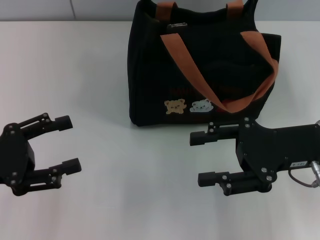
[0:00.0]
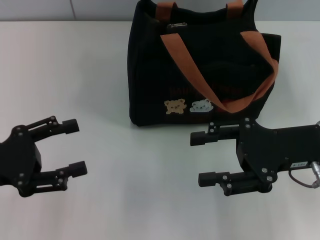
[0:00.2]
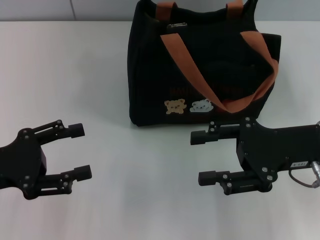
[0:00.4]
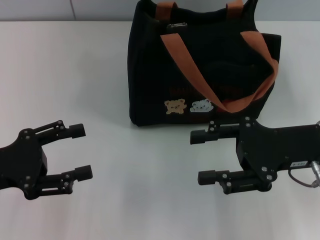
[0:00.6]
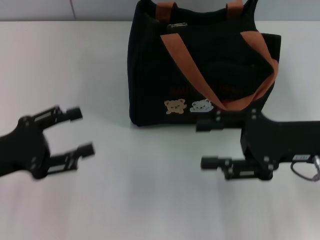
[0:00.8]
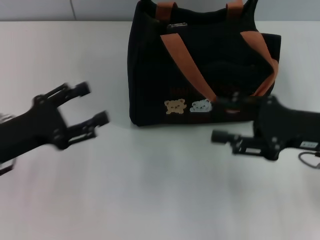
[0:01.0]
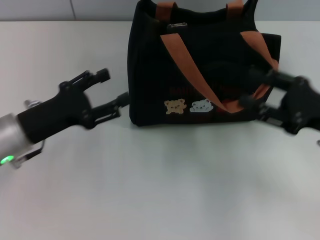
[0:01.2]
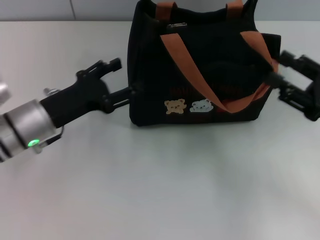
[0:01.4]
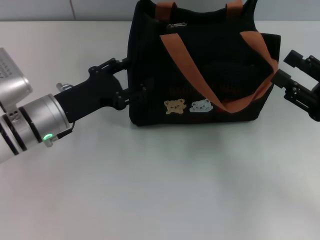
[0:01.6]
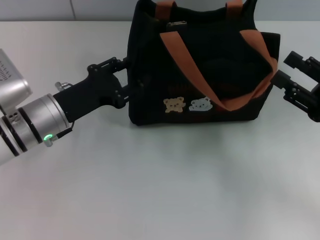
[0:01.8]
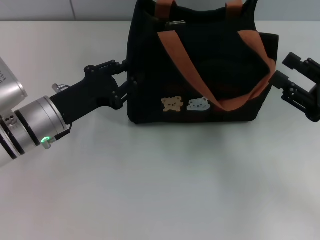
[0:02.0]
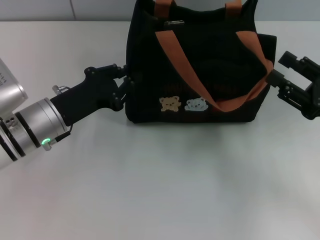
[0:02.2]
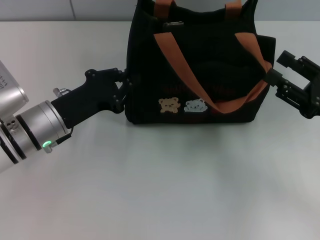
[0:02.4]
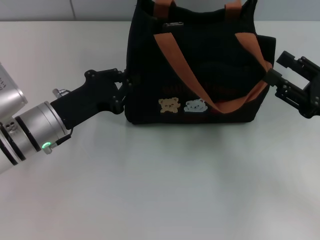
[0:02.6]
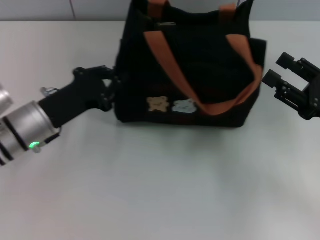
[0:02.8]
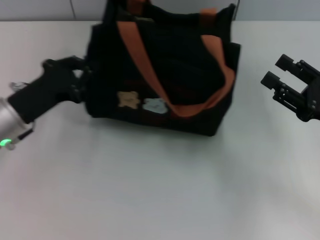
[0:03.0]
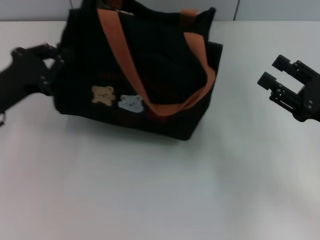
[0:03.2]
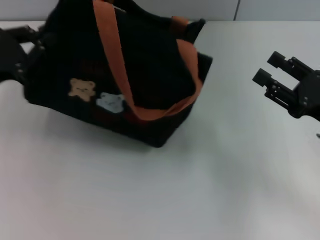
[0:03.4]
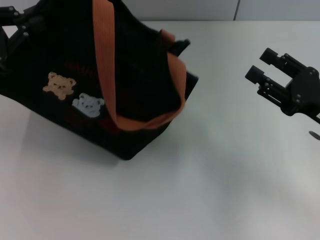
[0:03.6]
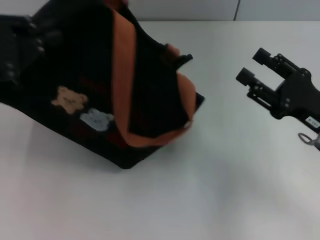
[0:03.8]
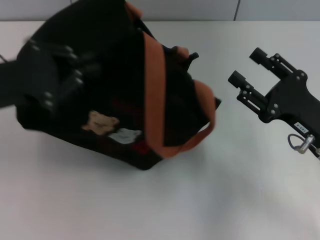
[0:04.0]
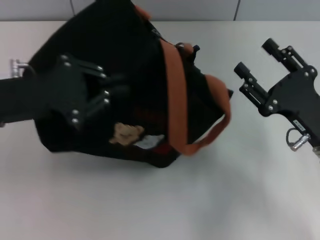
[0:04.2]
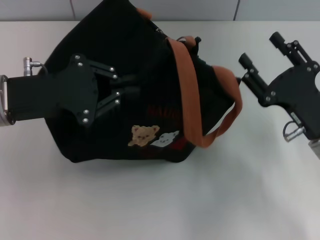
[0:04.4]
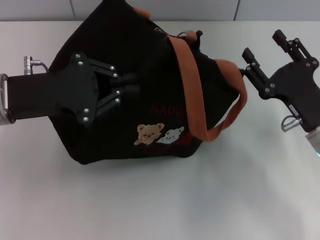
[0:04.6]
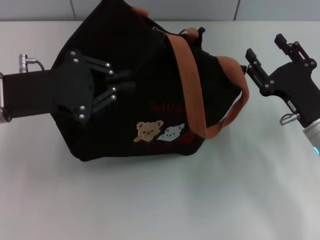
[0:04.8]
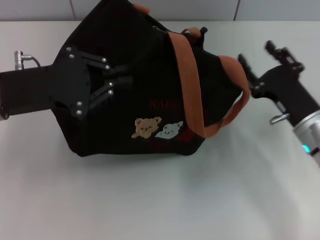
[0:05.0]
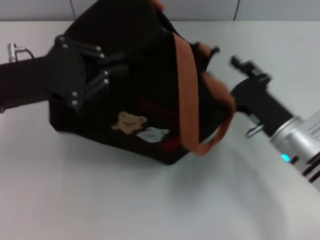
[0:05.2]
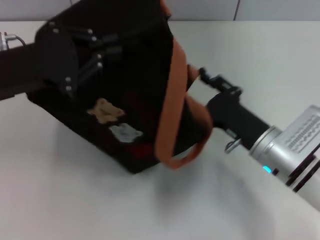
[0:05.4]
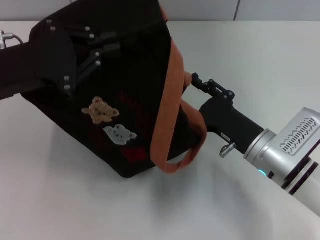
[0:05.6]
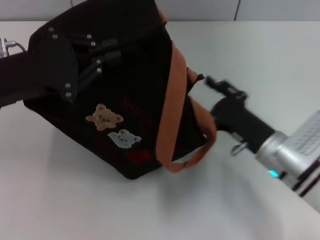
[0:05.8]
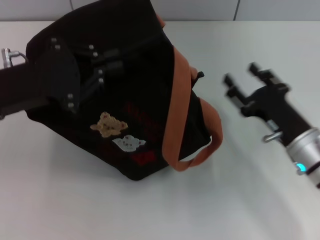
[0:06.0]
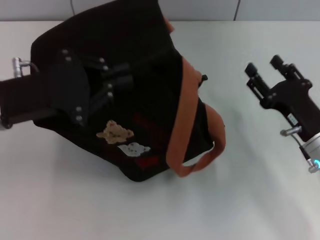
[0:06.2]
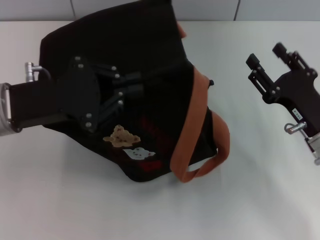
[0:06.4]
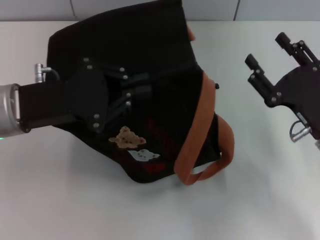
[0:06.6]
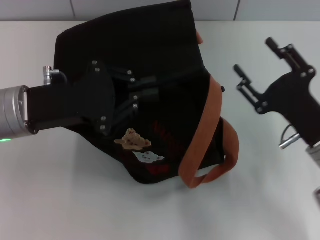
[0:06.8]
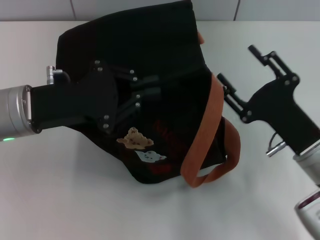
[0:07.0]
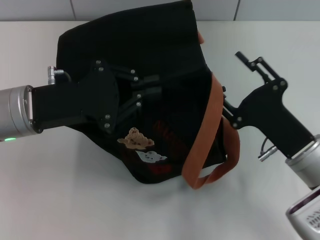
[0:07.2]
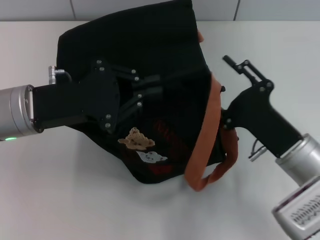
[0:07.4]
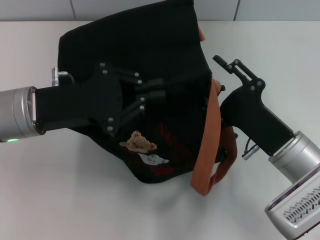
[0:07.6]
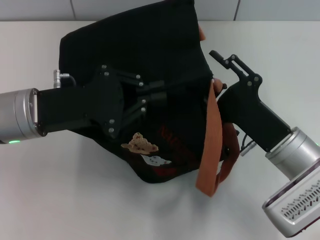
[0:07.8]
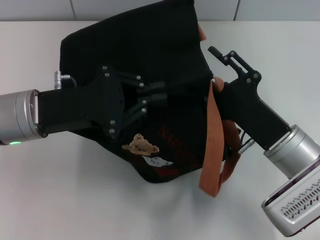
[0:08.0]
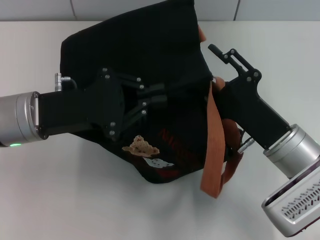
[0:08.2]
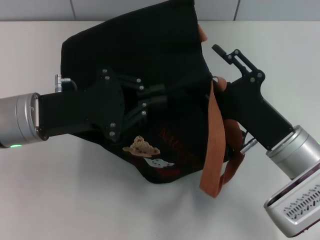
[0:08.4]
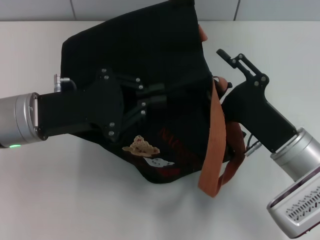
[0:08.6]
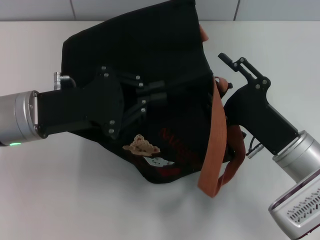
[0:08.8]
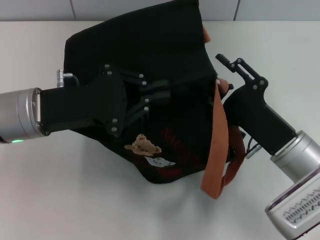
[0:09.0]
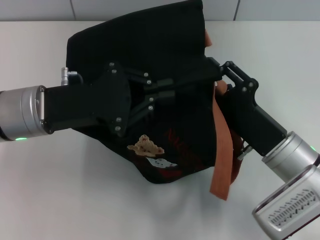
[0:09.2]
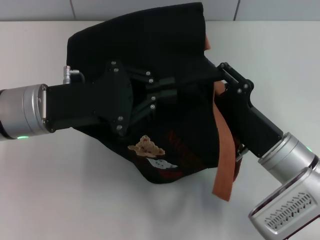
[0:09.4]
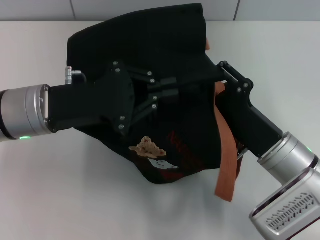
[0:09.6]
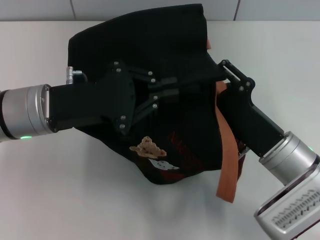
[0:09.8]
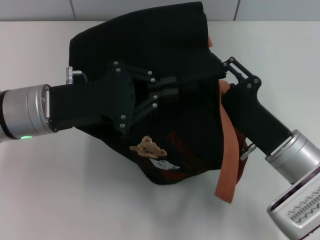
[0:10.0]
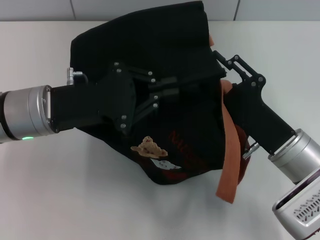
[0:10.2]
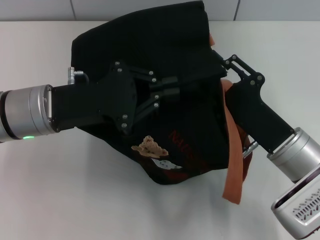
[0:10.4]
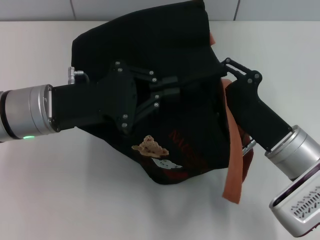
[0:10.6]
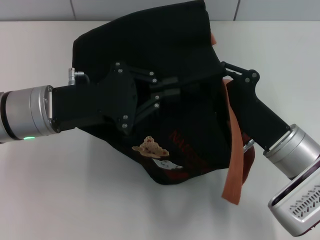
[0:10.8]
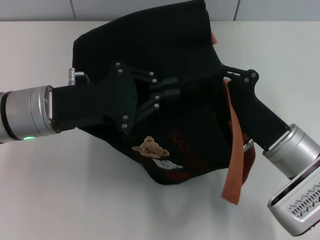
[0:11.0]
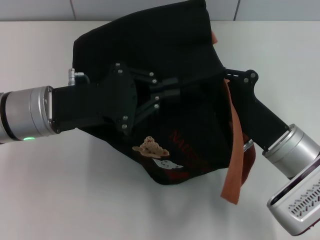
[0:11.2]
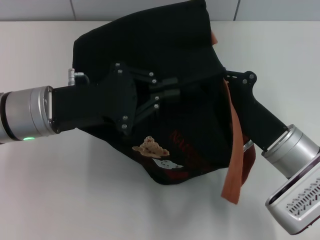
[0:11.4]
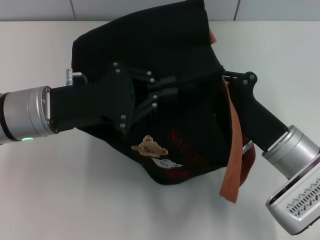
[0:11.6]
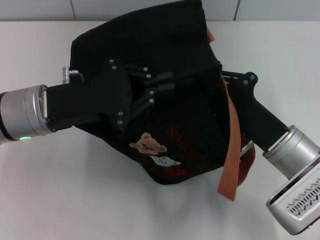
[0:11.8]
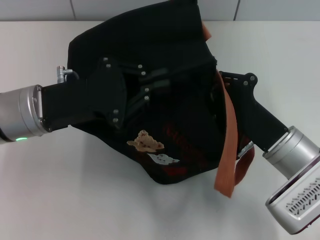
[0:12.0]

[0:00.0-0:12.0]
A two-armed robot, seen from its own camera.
0.0 to 1.6 s: The right gripper shifts about 10 cm to the right. The left gripper is displaced to the right and forward by roughly 15 cm.
1.6 to 3.0 s: The left gripper closes up.
3.0 to 4.4 s: The right gripper shifts about 5 cm to the left. Meanwhile the left gripper travels upward by about 10 cm.
7.6 to 9.0 s: Neither gripper changes place.
9.0 to 10.4 s: The grippers stay close to where they were, moving slightly.
10.4 to 12.0 s: The right gripper closes.

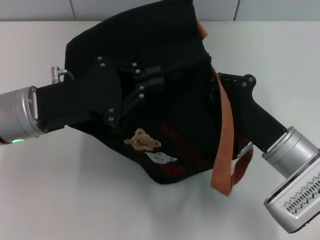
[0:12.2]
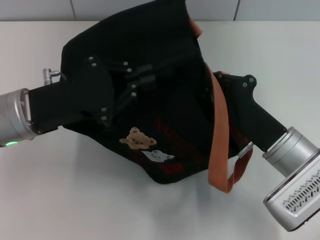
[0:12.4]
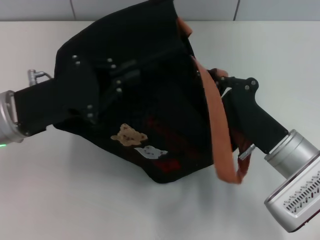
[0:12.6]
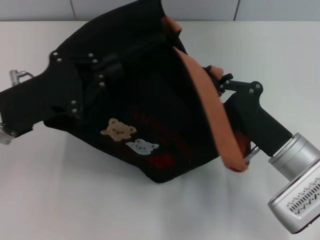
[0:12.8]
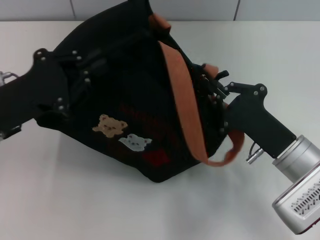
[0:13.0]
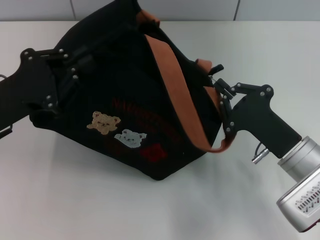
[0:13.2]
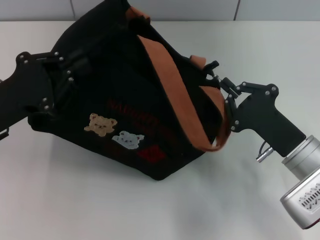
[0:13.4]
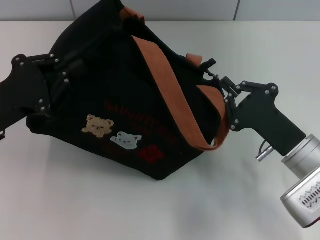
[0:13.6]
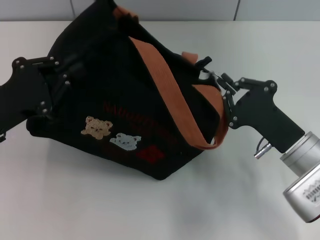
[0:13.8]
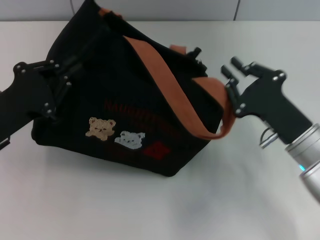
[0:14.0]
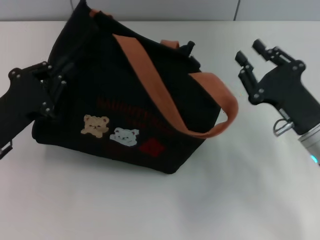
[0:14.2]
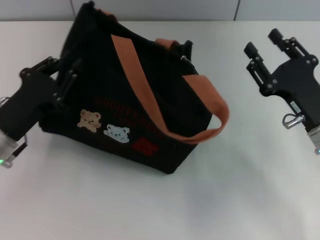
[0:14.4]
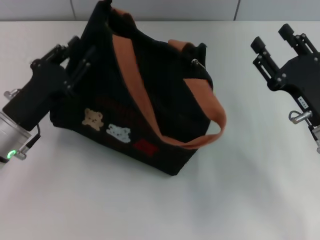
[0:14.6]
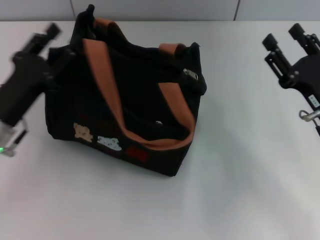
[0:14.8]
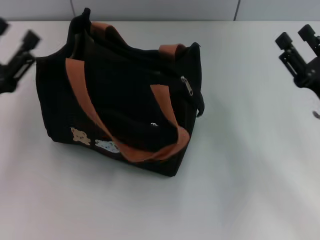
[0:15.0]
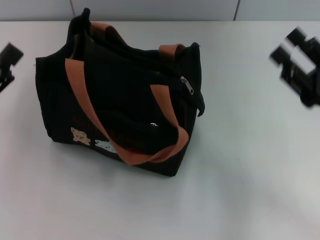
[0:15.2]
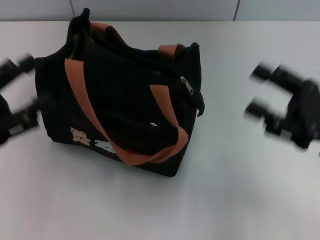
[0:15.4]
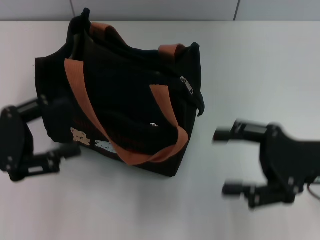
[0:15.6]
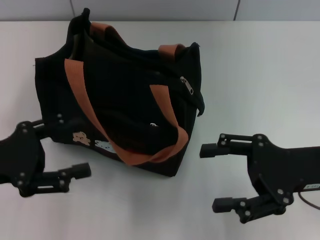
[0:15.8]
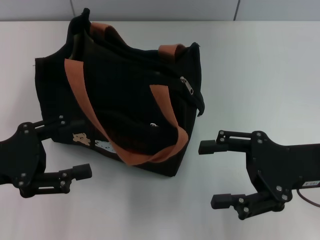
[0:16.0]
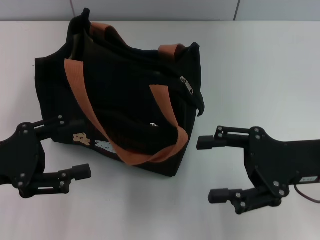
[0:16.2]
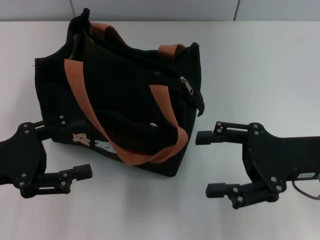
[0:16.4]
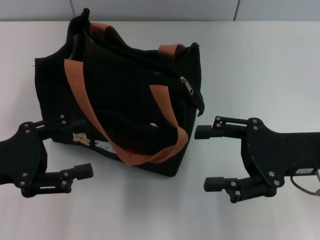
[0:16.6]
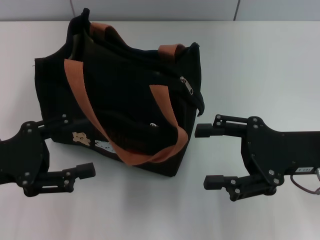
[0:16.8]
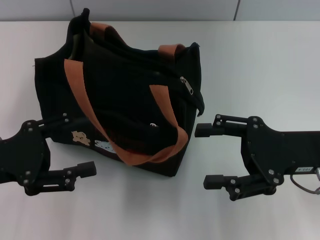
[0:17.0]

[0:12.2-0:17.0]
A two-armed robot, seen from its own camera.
Step, 14.4 to 15.0 s: Grab the bag with your left hand.
12.2 to 13.8 s: The left gripper is displaced to the left by roughly 5 cm.
13.8 to 15.4 s: The left gripper moves roughly 5 cm, and opens up; the right gripper goes some 10 cm to the right and upward, and opens up.

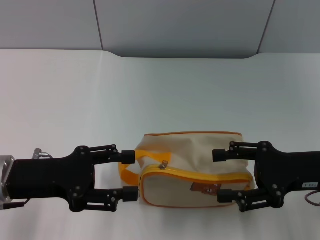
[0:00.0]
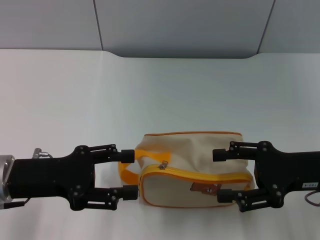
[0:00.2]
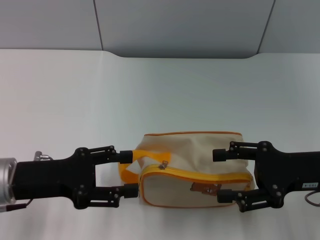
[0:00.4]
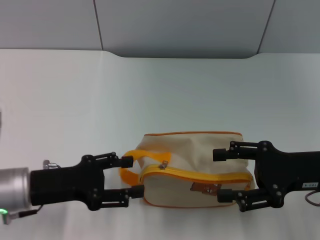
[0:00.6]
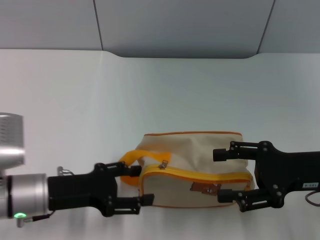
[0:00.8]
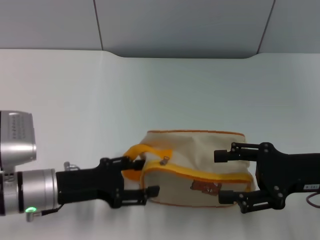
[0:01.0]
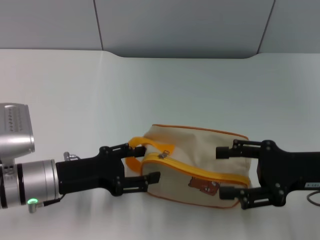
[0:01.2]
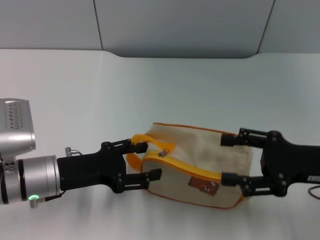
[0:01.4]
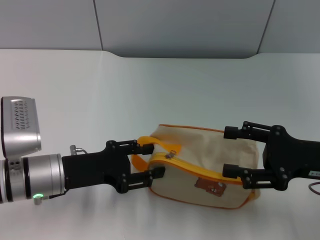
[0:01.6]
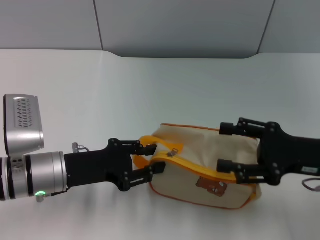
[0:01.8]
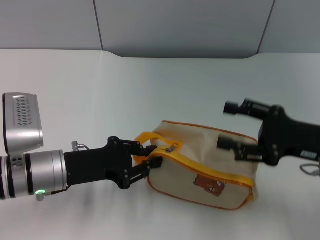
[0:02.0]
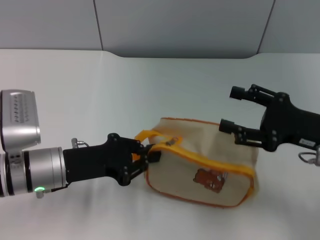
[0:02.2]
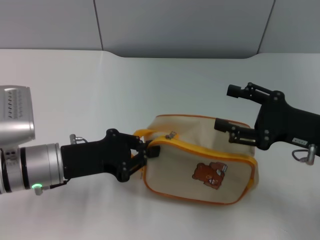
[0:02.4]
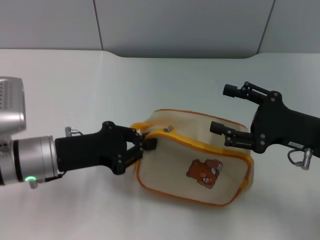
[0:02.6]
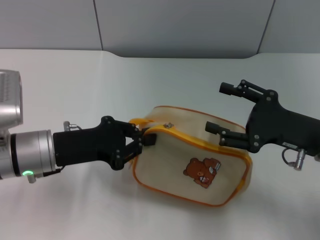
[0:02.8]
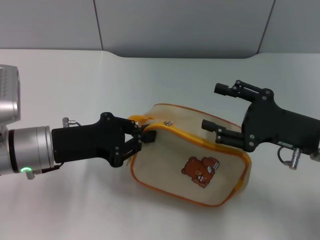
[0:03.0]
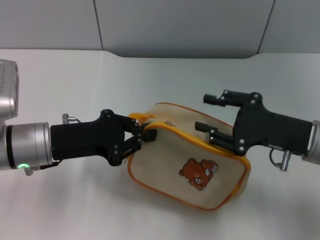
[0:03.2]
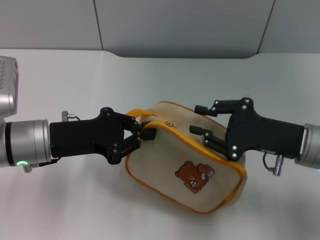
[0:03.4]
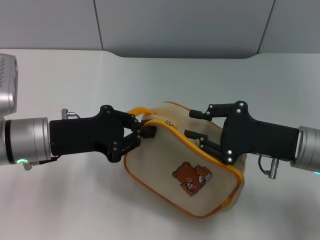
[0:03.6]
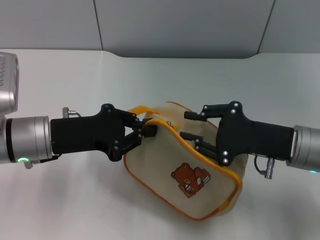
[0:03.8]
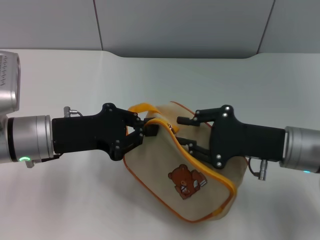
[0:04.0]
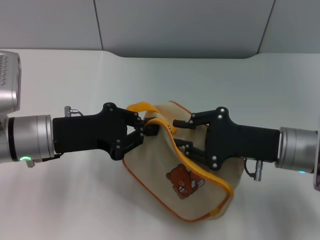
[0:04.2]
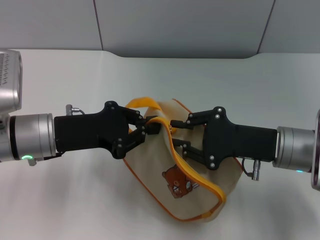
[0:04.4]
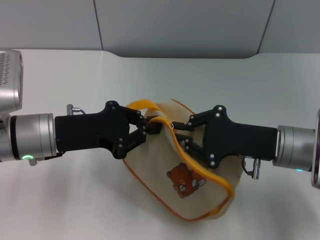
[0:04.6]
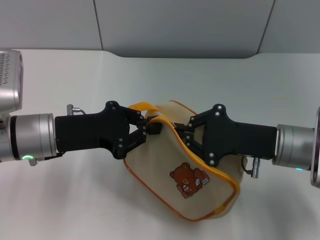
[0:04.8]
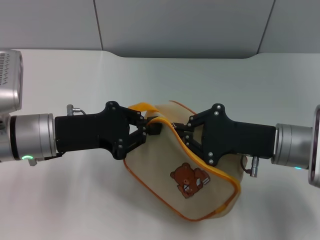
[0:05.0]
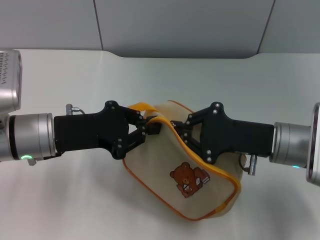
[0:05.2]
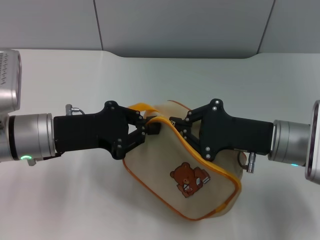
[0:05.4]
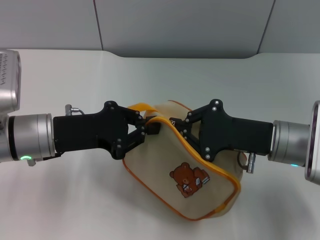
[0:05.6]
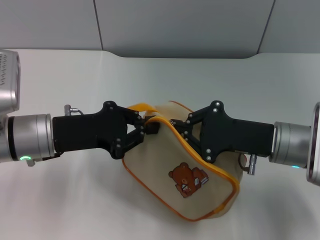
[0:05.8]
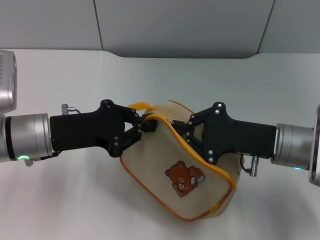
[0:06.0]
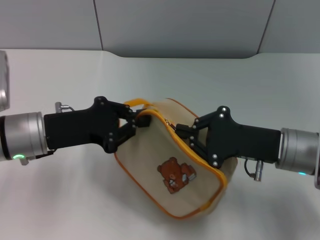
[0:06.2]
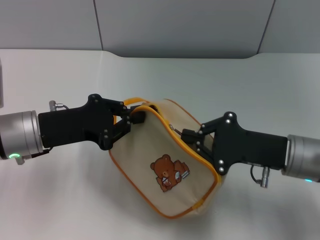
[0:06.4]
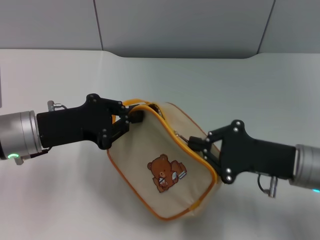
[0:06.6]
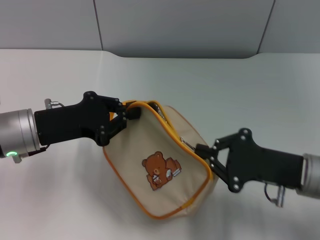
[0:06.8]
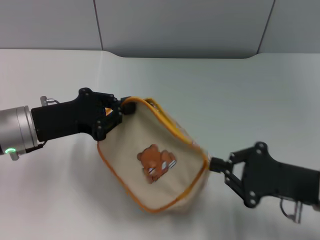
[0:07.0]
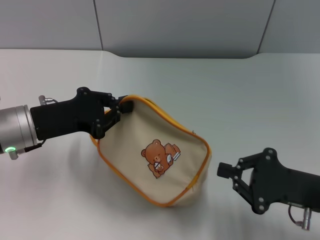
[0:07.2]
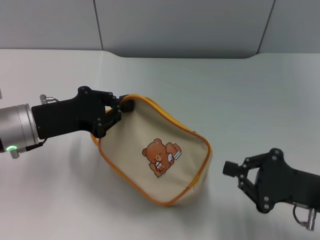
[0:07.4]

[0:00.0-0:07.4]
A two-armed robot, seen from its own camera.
Step, 0.0 to 2.8 s: Pick up the bag with left gripper.
0.0 to 1.4 s: The left gripper shifts by some 5 cm.
1.4 to 3.0 s: The left gripper closes.
3.0 to 4.4 s: The right gripper closes up.
4.4 to 6.0 s: The right gripper closes up.
6.0 to 7.4 s: The right gripper heads backward and to the right, covering roughly 10 cm.
